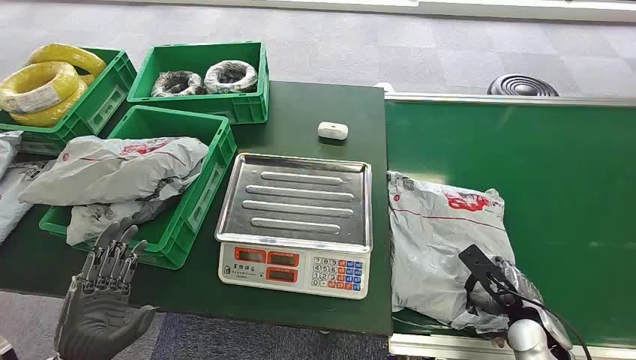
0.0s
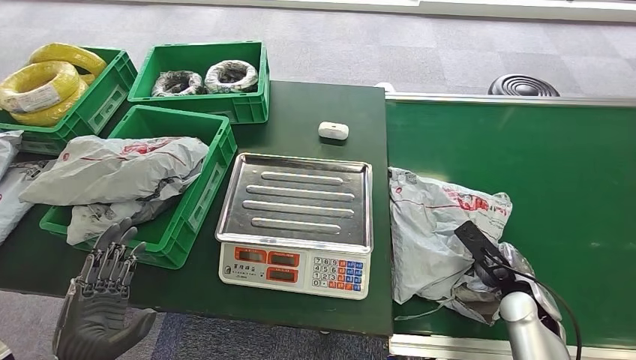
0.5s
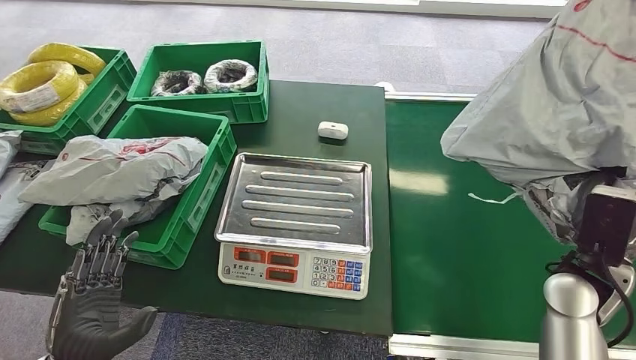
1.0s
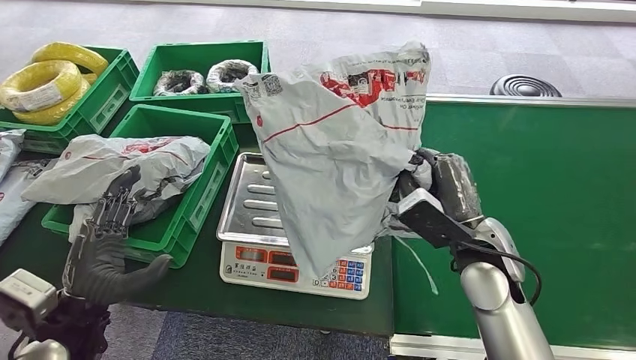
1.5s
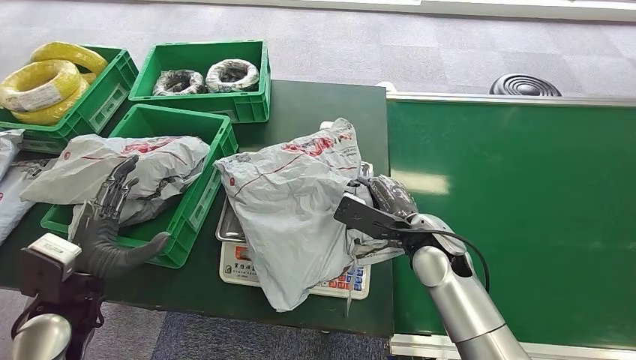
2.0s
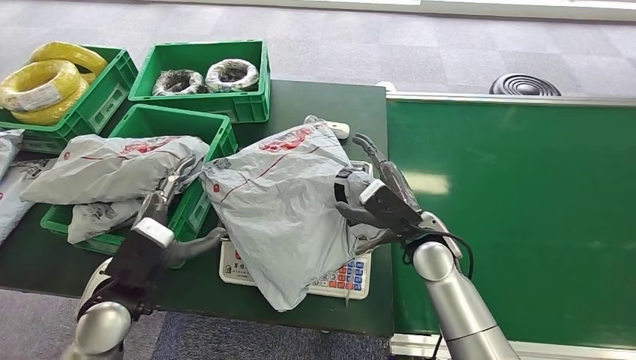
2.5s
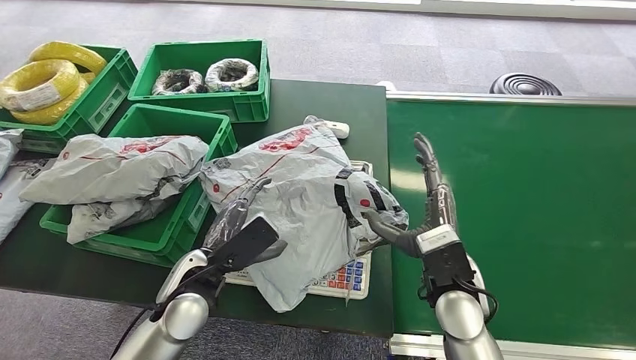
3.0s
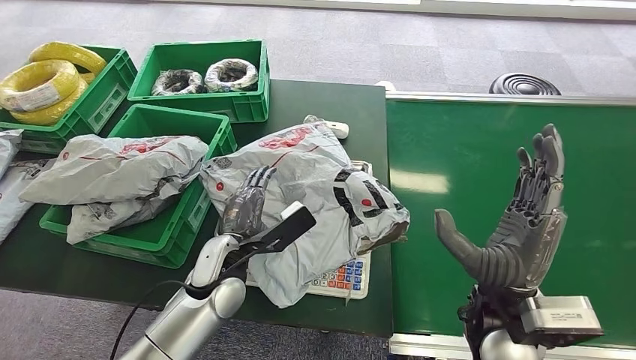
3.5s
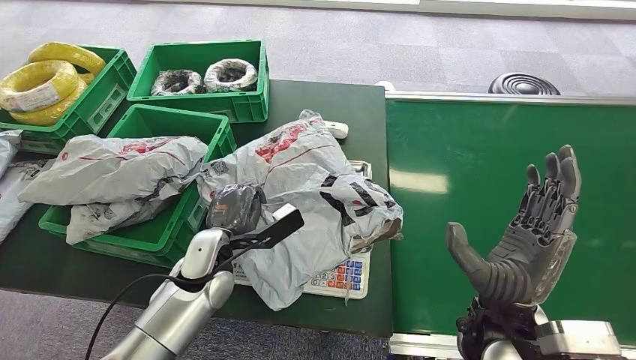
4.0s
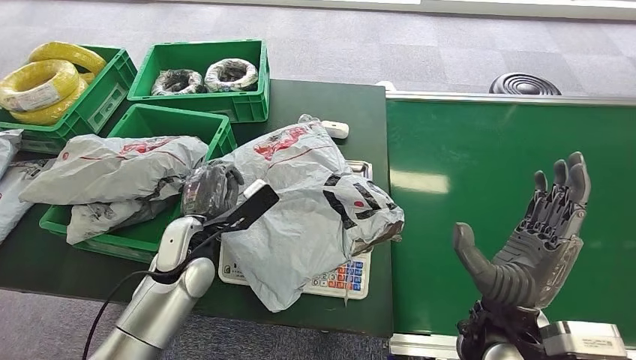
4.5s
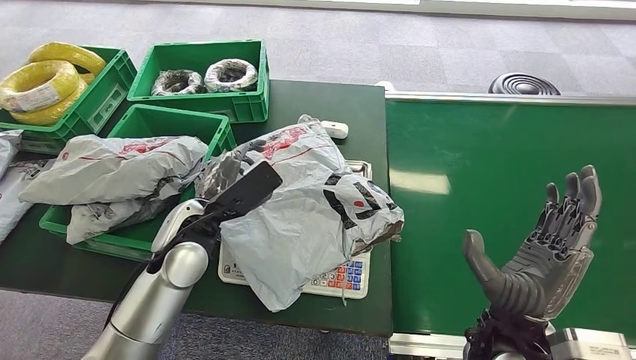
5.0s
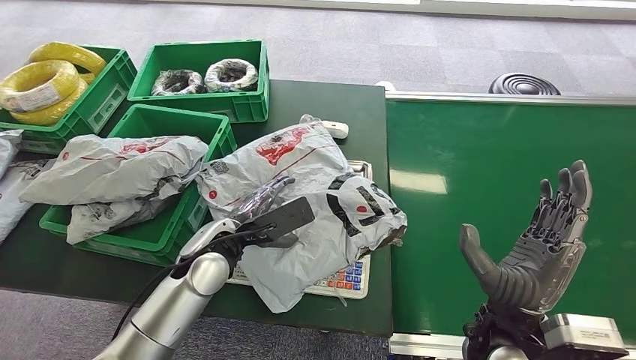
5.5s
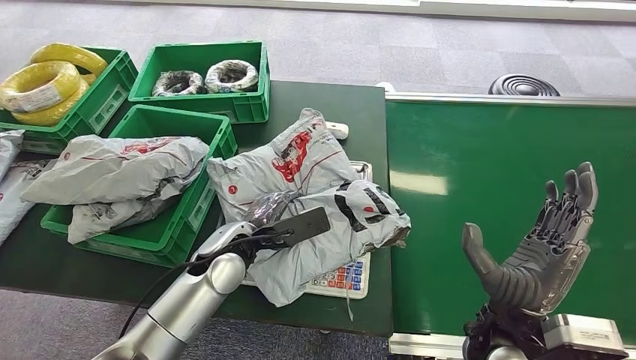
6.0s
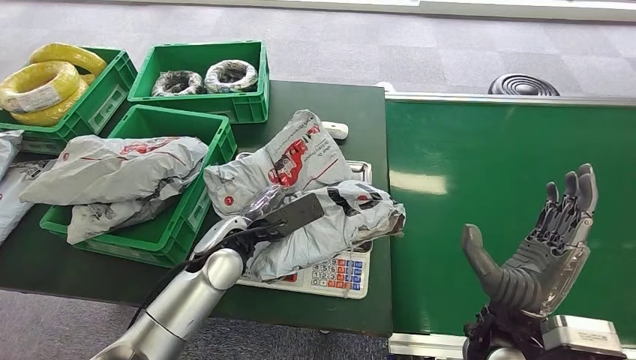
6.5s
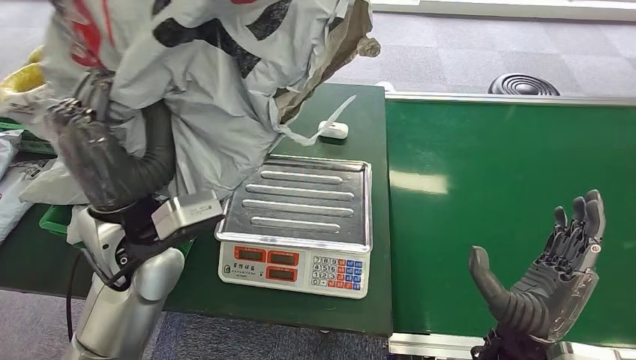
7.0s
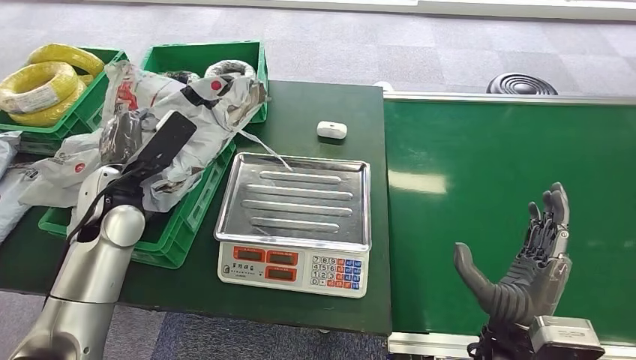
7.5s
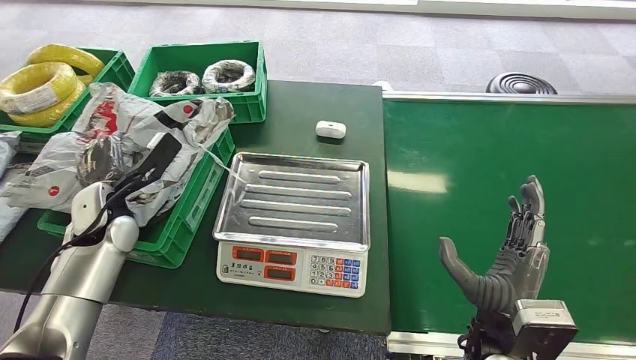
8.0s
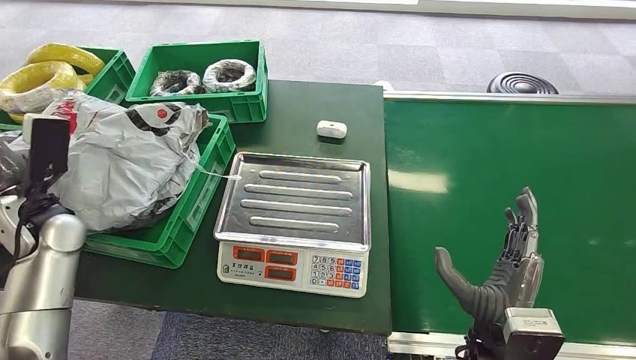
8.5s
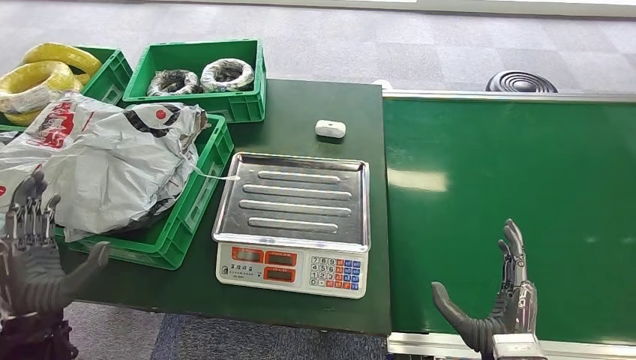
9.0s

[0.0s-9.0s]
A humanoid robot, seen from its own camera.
Step, 0.0s to 0.5s: Pick up the package from the conveyor belt.
Step, 1.5s to 2.5s: Place the package onto the inbound machine.
Step, 3.5s to 7.0s: Pick up the package from the inbound machine.
Step, 8.0s to 9.0s: Place the package into the parcel locker.
